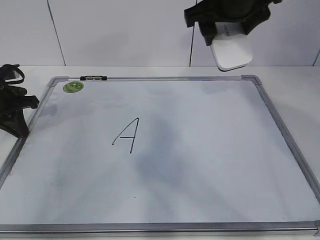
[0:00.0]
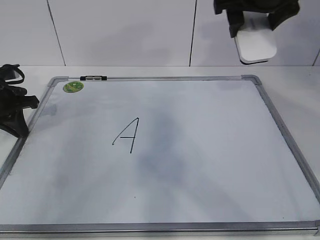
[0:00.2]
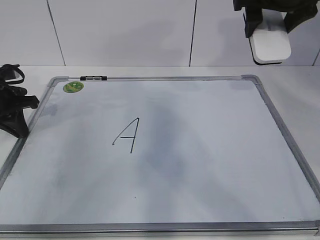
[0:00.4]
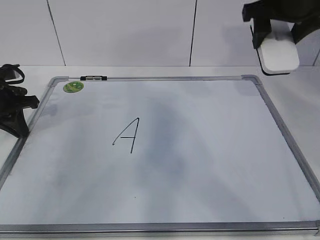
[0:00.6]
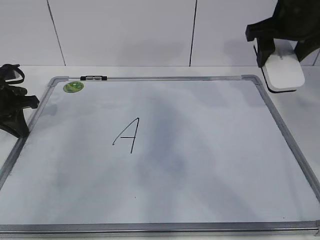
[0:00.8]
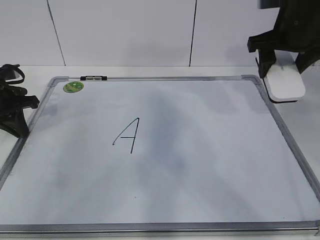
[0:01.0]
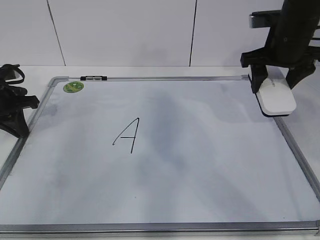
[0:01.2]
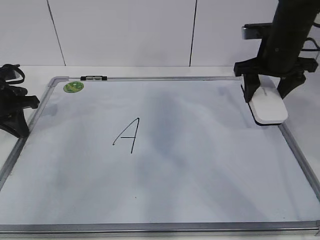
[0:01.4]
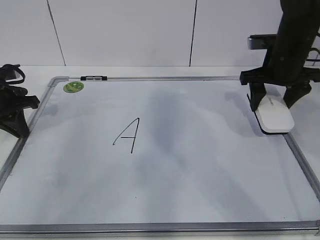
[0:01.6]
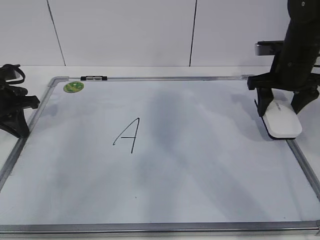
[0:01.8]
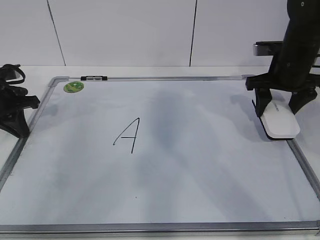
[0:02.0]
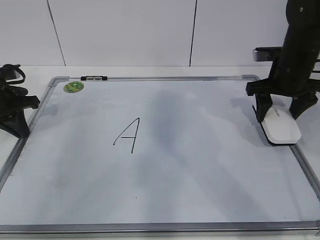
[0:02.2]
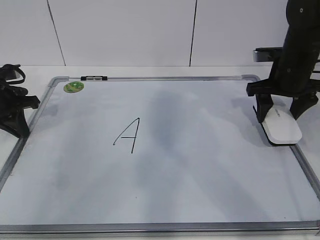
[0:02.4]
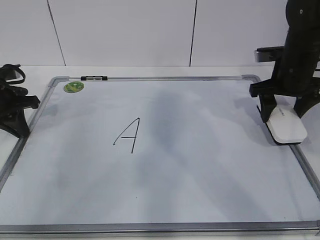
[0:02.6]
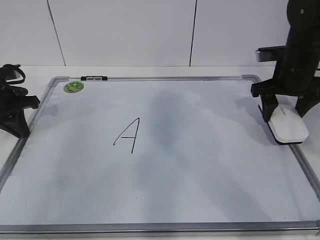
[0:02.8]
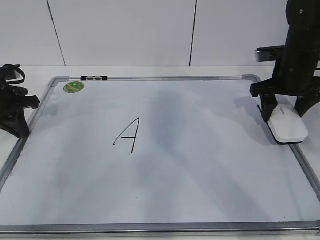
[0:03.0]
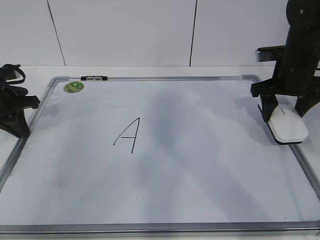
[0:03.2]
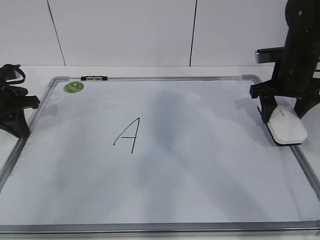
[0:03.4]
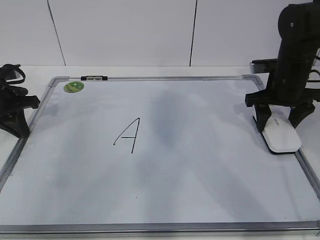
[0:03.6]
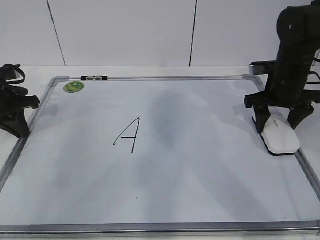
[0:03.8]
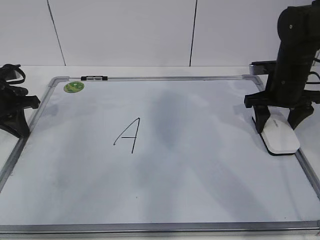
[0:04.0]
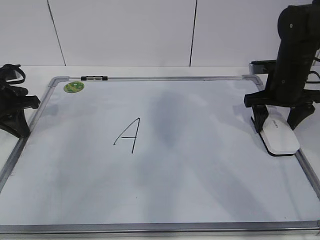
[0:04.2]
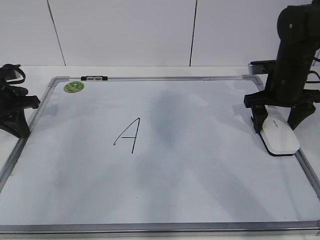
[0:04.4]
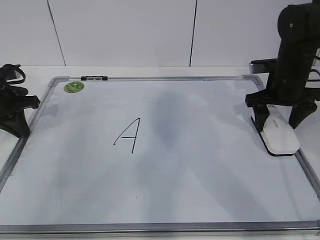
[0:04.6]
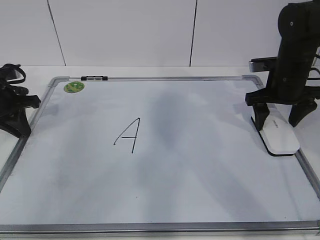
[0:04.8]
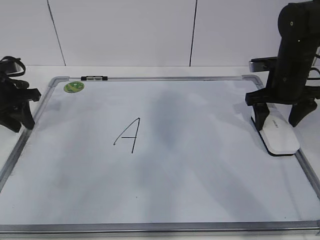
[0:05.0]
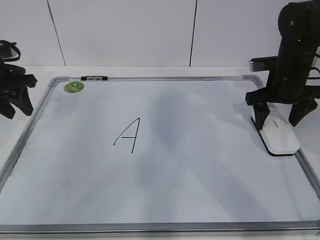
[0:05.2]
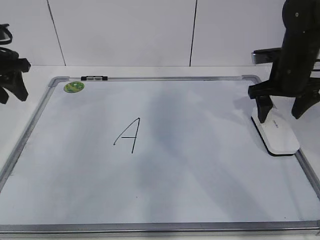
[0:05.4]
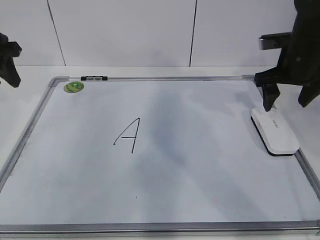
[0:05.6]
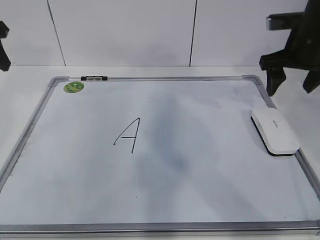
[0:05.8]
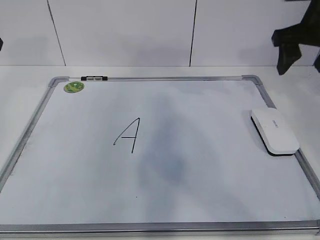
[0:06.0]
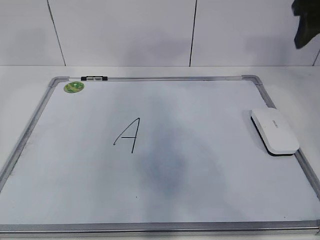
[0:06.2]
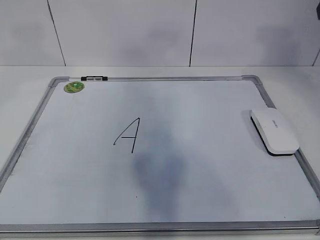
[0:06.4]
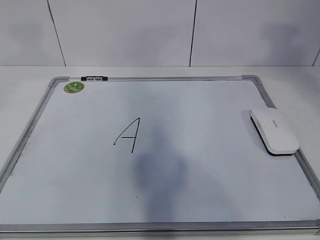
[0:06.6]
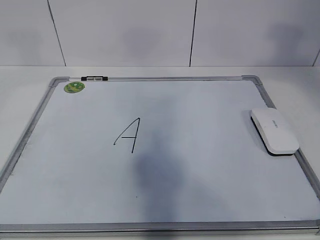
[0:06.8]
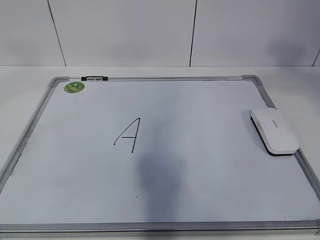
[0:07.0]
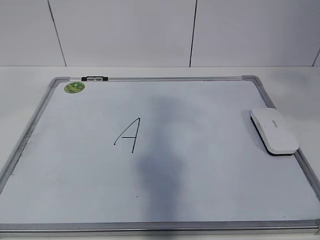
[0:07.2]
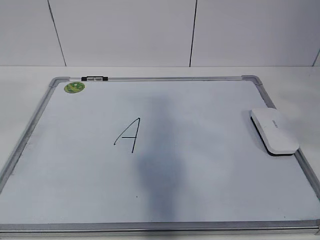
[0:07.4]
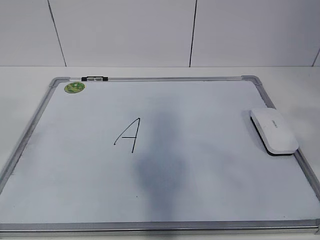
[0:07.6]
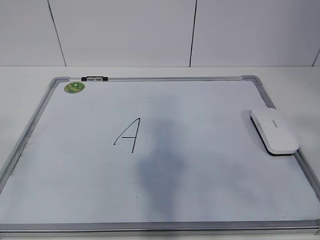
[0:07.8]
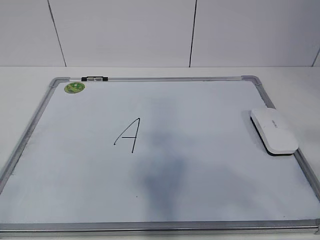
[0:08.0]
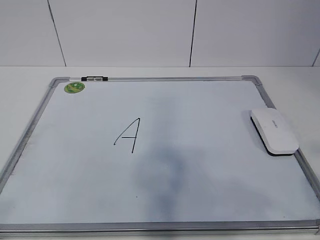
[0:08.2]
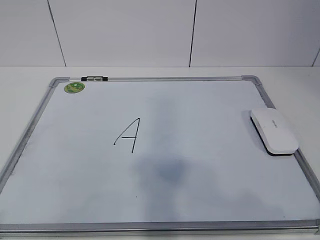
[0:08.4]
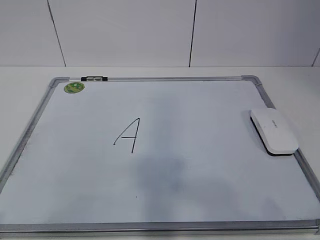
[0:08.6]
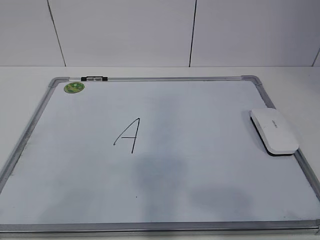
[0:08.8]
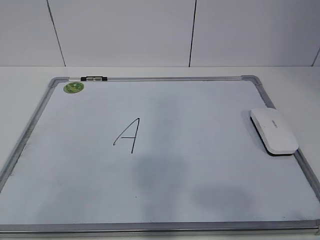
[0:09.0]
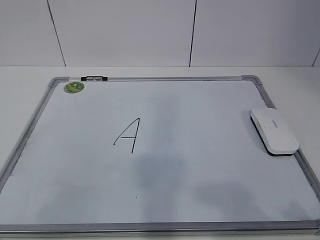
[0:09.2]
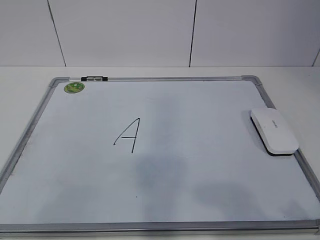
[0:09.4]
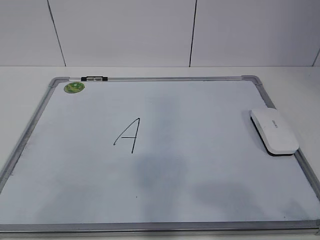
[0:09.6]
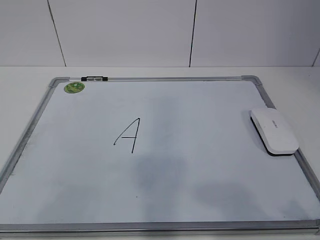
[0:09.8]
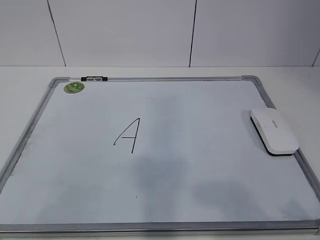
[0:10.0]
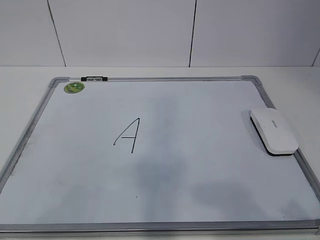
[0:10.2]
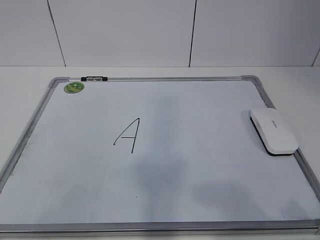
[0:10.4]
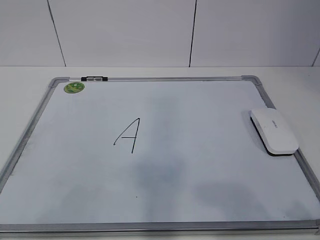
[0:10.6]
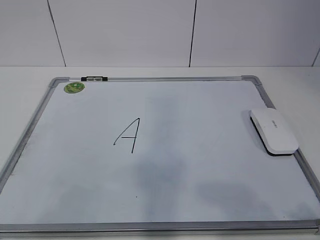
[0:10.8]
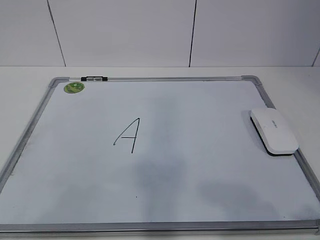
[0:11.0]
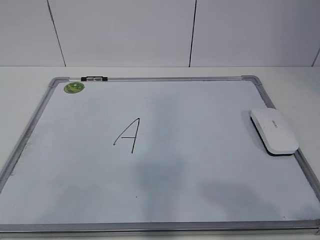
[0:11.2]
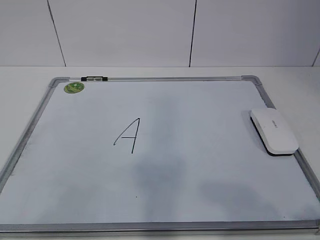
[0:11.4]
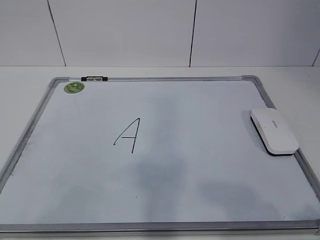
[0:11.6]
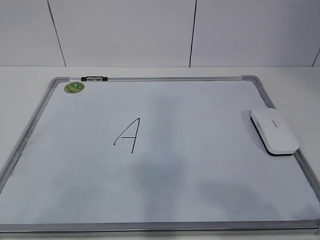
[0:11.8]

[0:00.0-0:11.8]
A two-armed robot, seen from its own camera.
Task of the whole recording: pick up the eraser on the blackboard and erase the letter "a".
0:00.0 to 0:01.4: The right gripper travels to the right and downward by about 15 cm.
0:01.4 to 0:03.0: There are only small adjustments of the grippers.
0:03.0 to 0:04.4: The right gripper opens up.
0:04.4 to 0:06.0: Both grippers move upward, some 15 cm. The left gripper opens up.
0:06.0 to 0:07.4: The left gripper moves backward and upward, roughly 35 cm. The right gripper travels backward by approximately 30 cm, and closes its fingers.
0:07.4 to 0:08.8: The right gripper travels downward and backward by some 20 cm. The left gripper shifts some 20 cm downward.

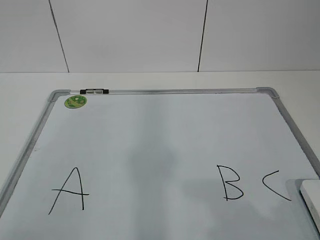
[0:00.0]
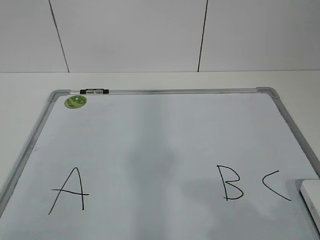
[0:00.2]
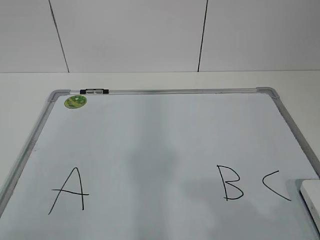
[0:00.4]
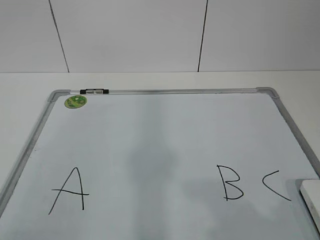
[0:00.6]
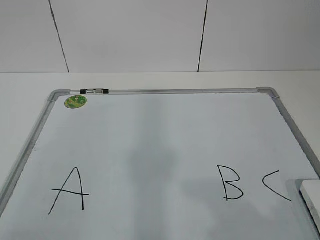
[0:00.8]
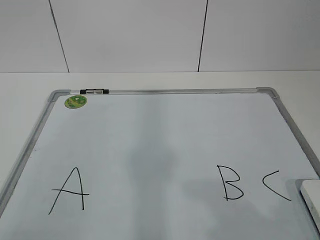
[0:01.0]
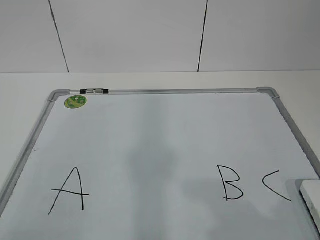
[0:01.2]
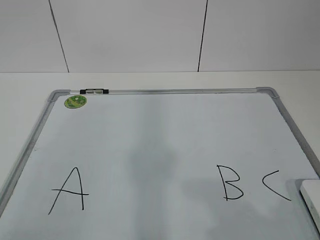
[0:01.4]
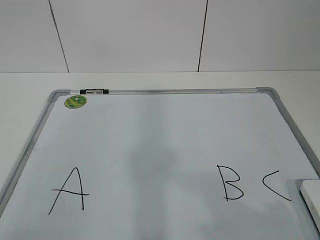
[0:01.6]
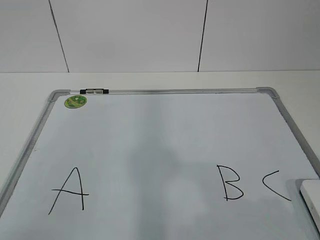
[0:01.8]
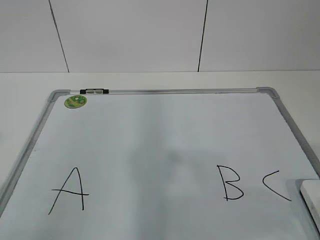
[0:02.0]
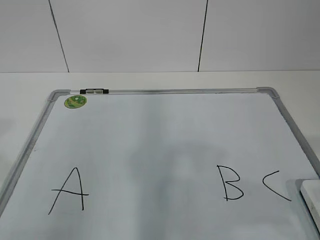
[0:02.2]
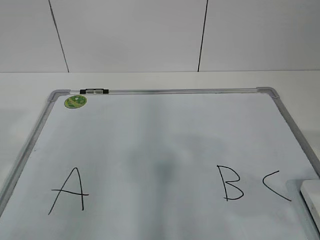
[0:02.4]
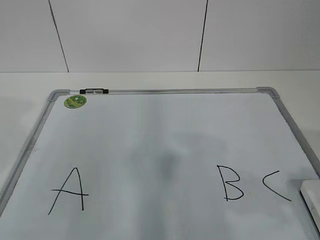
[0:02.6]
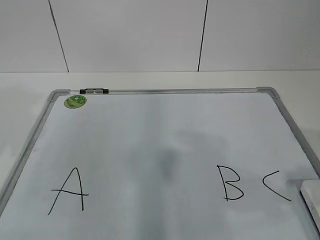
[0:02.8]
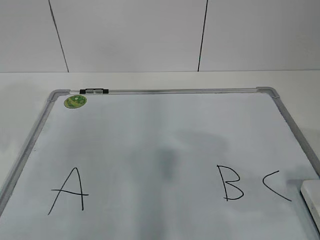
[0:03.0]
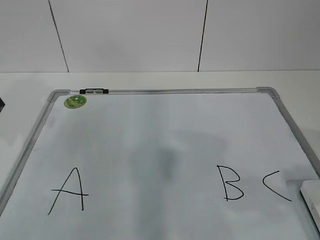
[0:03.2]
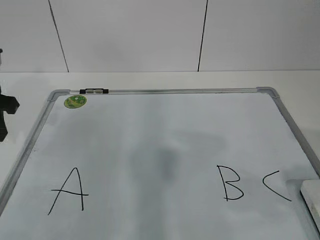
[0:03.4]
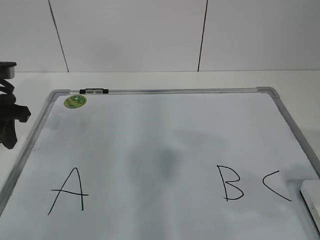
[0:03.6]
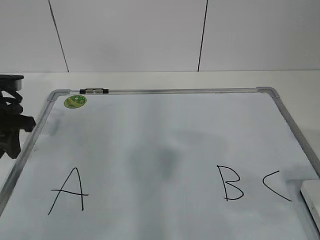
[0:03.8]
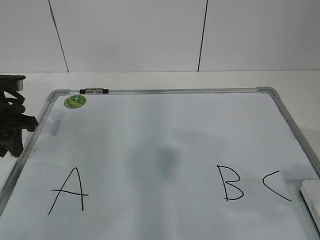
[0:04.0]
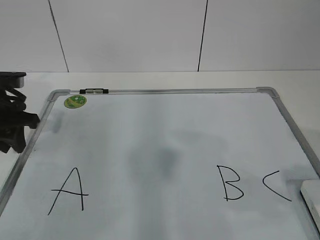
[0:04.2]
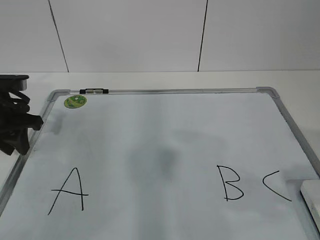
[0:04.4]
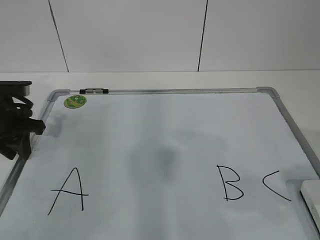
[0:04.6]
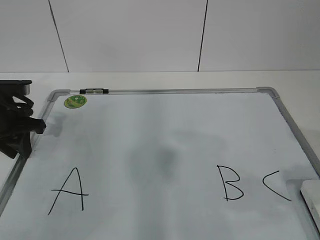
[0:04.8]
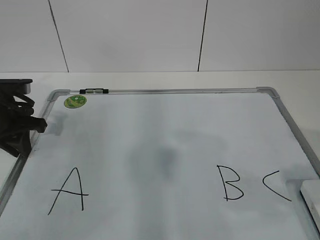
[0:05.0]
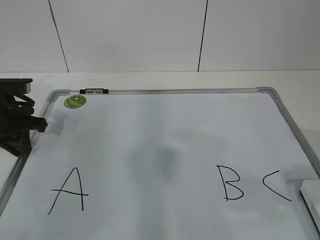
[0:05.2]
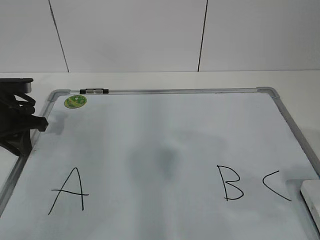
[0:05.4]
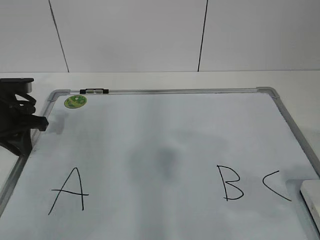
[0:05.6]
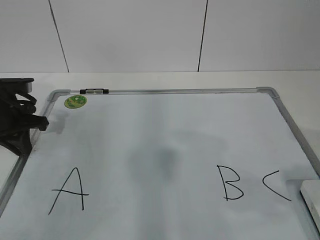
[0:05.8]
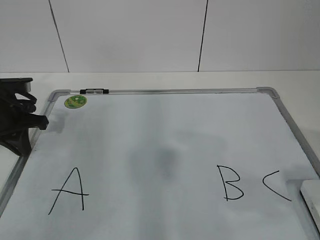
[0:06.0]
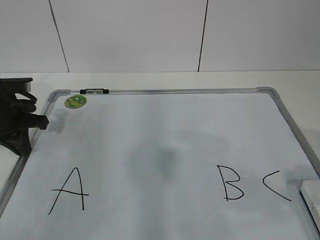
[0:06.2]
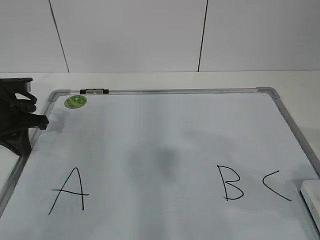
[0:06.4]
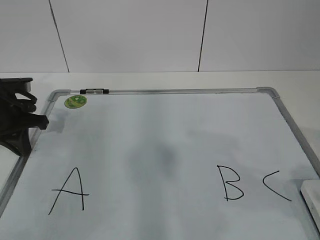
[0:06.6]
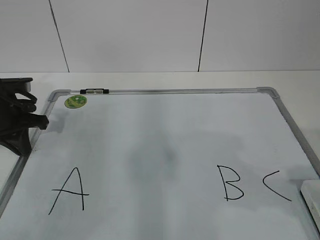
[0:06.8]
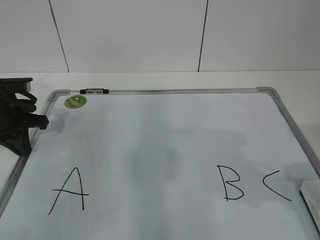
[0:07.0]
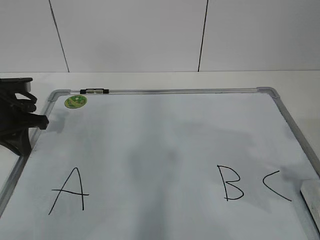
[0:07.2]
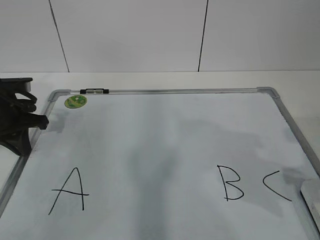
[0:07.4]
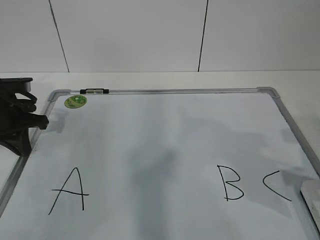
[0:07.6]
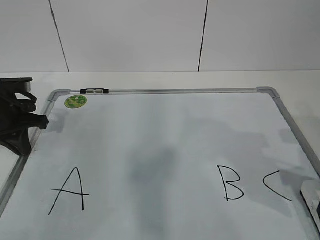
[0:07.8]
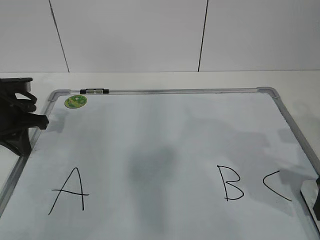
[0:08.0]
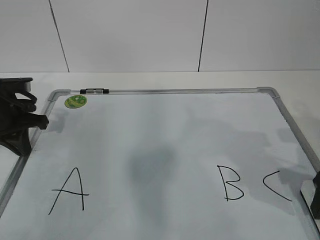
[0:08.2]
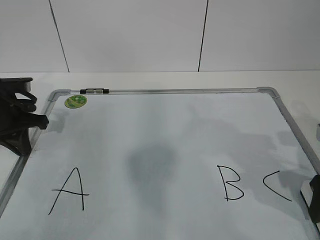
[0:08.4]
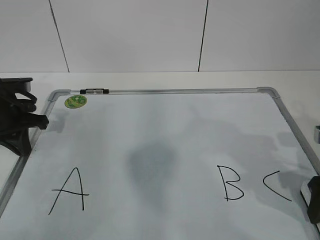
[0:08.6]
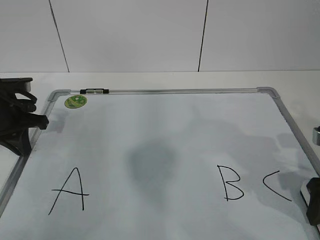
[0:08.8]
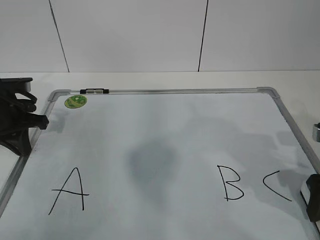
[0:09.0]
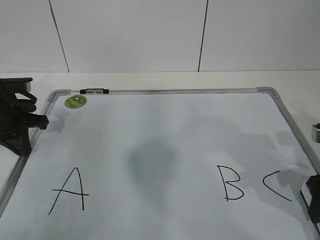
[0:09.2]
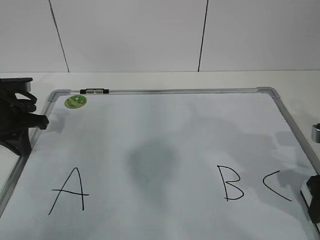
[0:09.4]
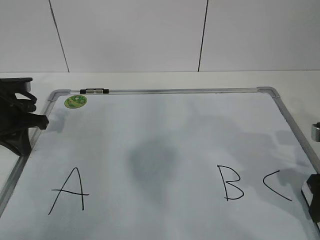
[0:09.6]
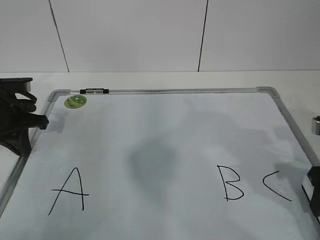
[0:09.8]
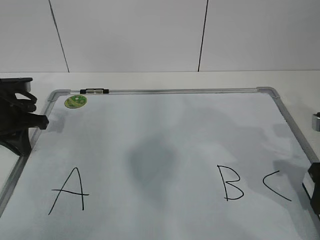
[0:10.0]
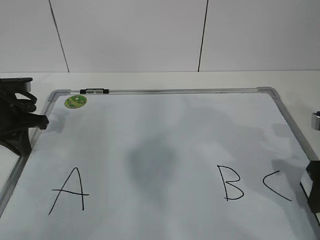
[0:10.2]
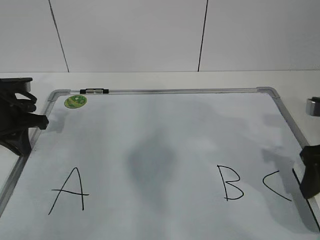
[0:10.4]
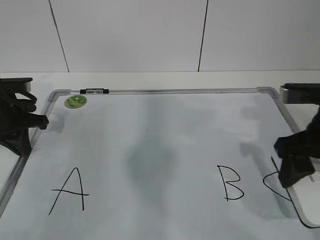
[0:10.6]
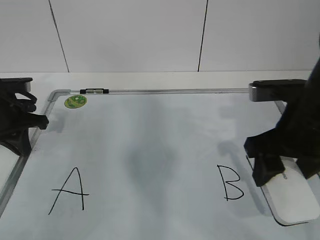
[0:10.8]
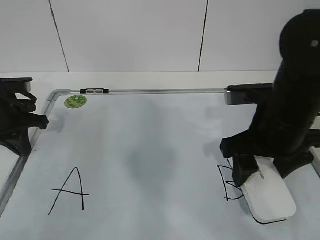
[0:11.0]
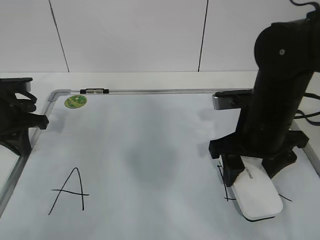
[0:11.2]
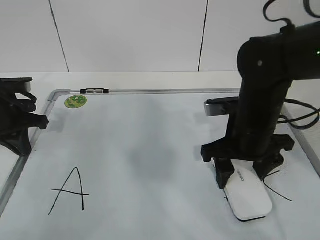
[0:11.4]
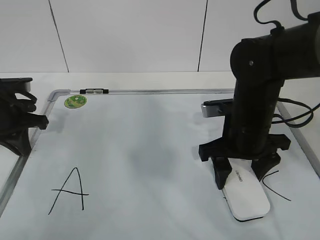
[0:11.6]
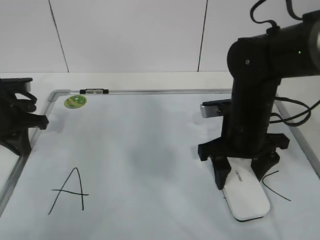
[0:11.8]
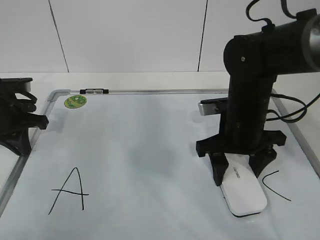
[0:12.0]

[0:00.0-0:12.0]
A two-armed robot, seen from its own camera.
Task of the whole recording: pick up the eraser on the blackboard and erase the letter "B".
Step, 0:00.0 to 0:04.0: Hold the drawing board steady with your left hand.
Step, 0:04.4 to 0:07.8: Grab the eraser with your right hand.
0:01.6 to 0:03.0: The left gripper is displaced forward by about 25 cm. Meanwhile the right gripper travels forward by approximately 10 cm.
0:03.0 to 0:04.4: The left gripper is displaced downward and forward by roughly 15 cm.
0:04.4 to 0:06.0: The left gripper closes up.
0:07.6 to 0:09.0: The grippers move only a little.
0:09.0 to 0:10.4: The right gripper closes.
0:10.4 to 0:12.0: The right gripper moves to the left and forward, approximately 15 cm.
